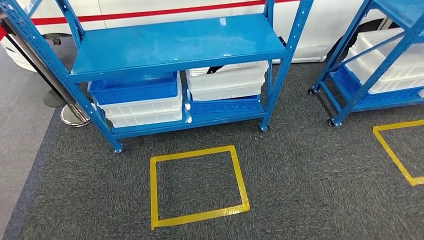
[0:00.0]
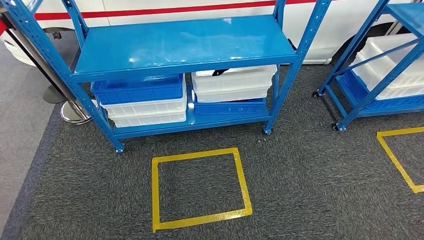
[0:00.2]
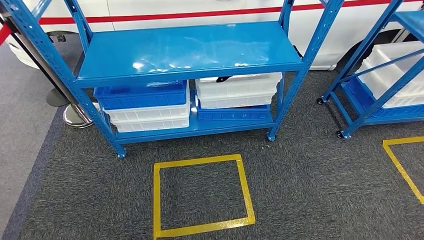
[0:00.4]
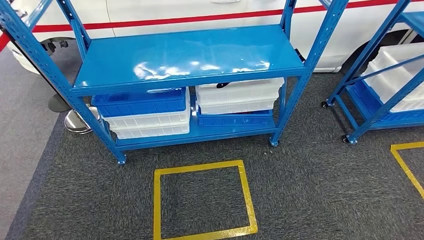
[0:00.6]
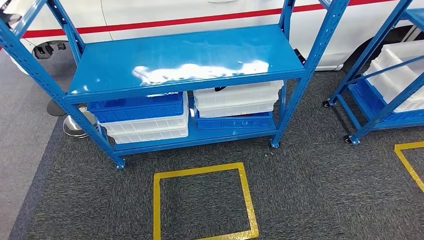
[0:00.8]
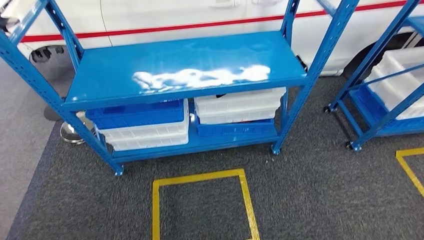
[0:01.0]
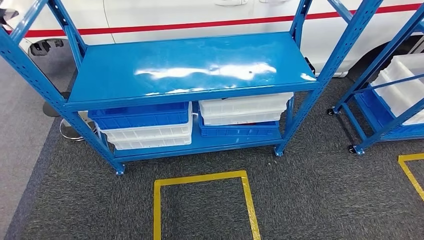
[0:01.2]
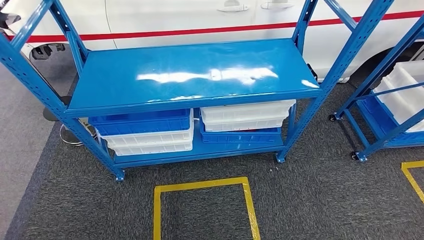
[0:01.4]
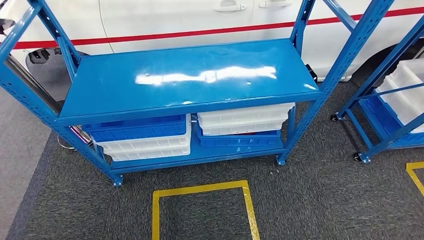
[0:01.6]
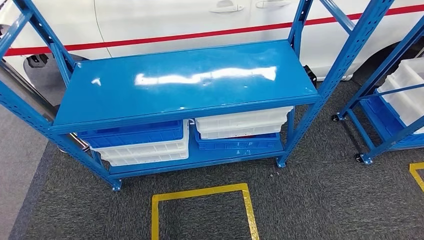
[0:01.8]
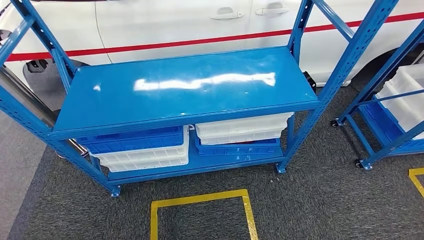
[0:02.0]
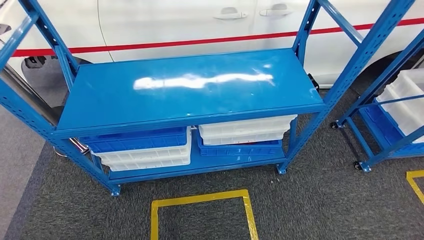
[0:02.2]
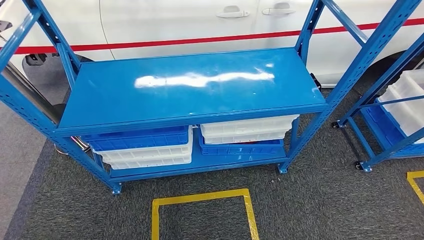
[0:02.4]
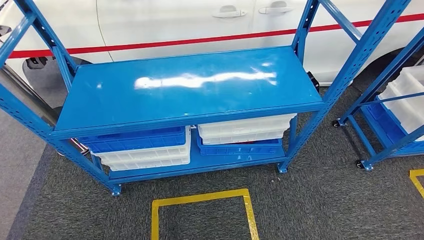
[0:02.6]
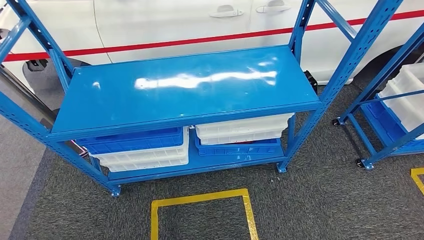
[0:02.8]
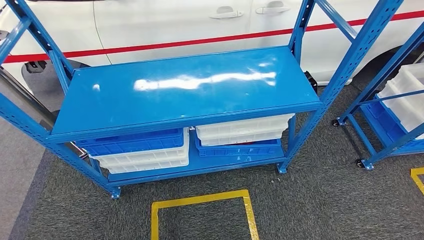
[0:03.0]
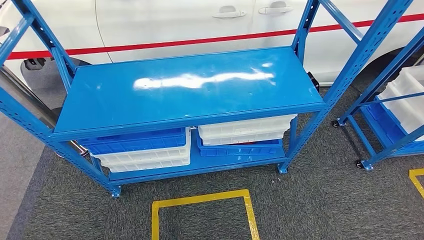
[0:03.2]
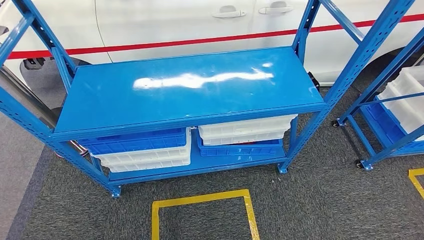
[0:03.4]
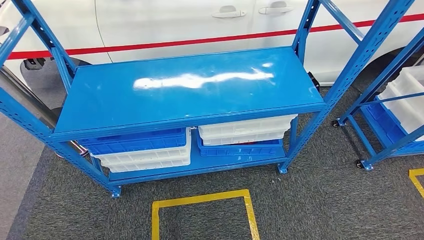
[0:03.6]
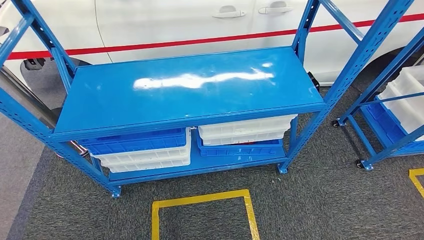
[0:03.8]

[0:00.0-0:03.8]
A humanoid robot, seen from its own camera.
Step, 0:00.0 to 0:03.8: Move to the initial position of the shelf.
0:02.6 to 0:03.8: The hands make only small movements.
